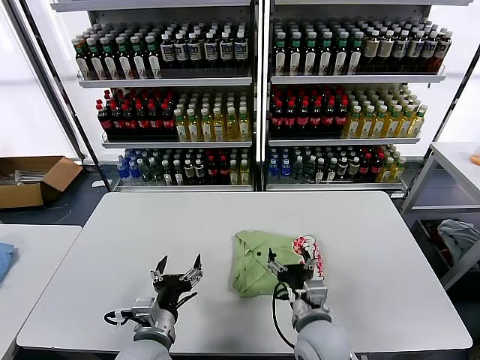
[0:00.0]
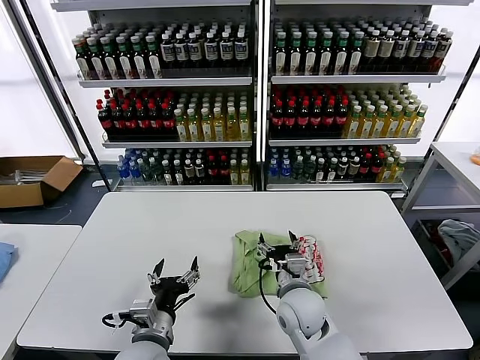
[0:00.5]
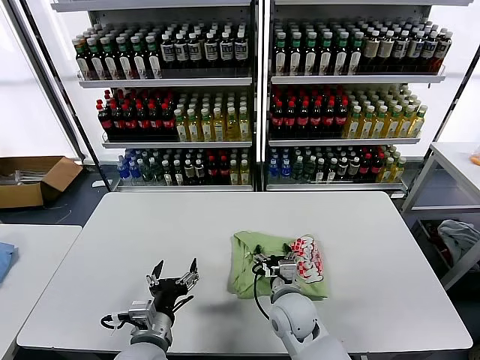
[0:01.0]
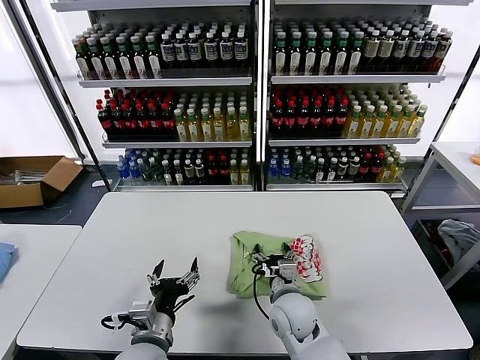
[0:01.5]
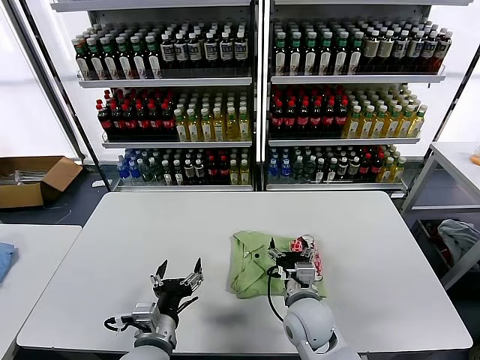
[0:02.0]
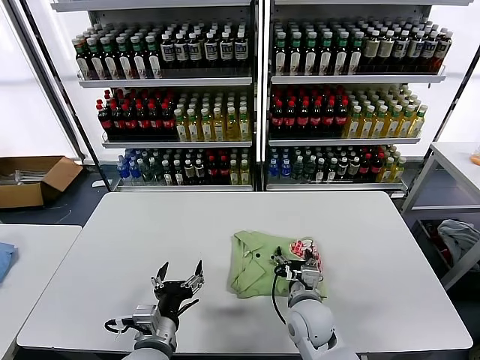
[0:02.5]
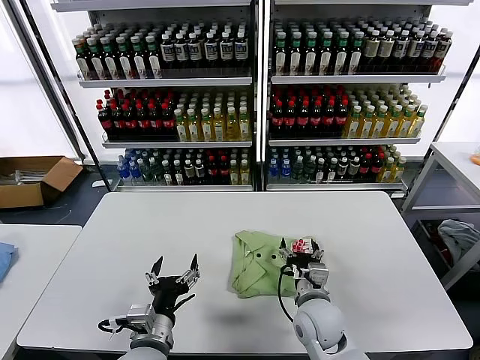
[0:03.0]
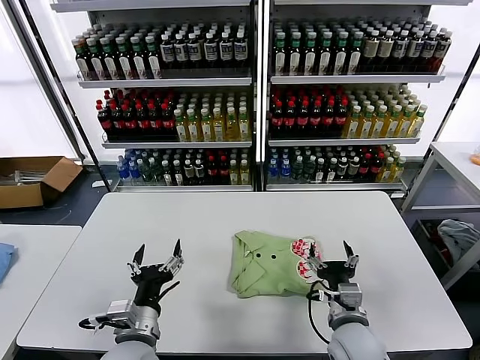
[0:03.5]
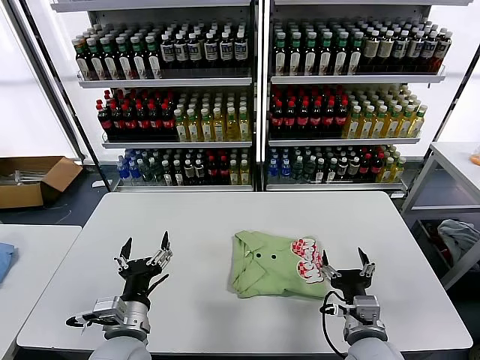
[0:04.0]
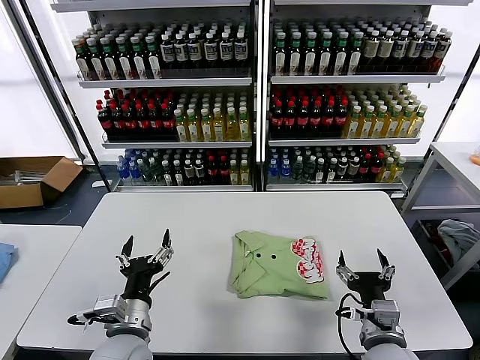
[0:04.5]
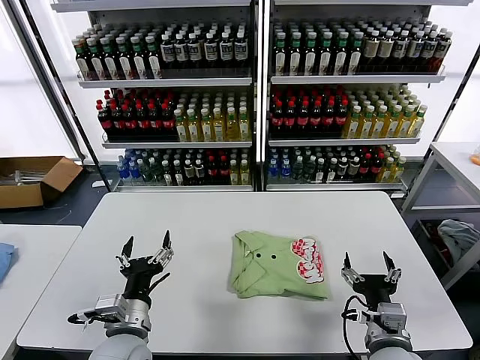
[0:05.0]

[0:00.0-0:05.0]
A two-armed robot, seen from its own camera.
Task of the whole recording: fold and organize the clothes.
Step, 0:00.0 to 0:03.0: Drag the clothes to the center of the table.
0:00.0 to 0:02.5: The right gripper moves forward, roughly 5 cm.
0:02.5 to 0:05.0: The right gripper heads backward, to the right and upward, covering some 20 cm.
